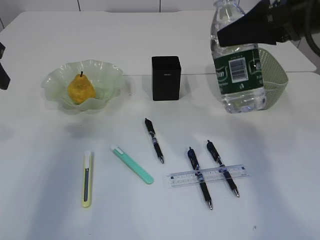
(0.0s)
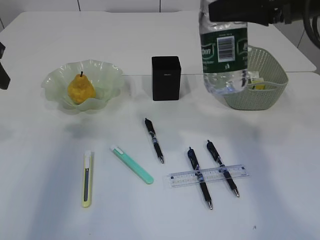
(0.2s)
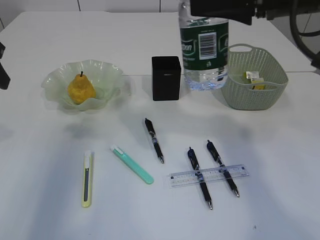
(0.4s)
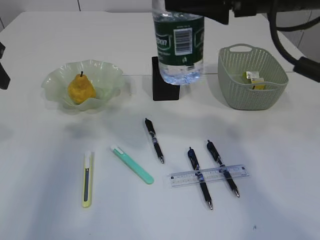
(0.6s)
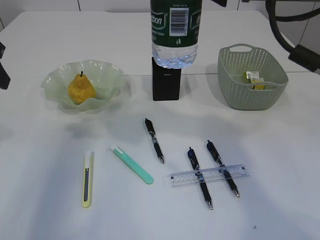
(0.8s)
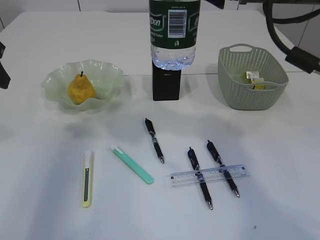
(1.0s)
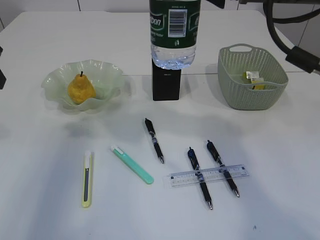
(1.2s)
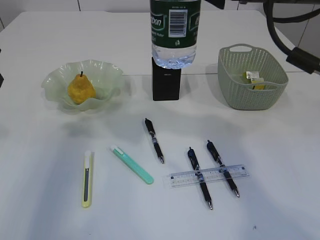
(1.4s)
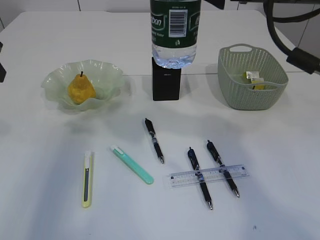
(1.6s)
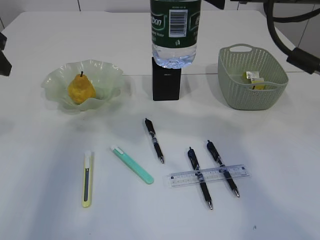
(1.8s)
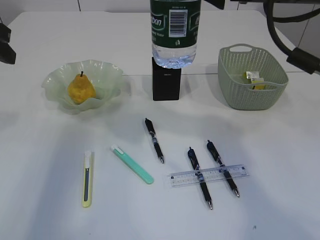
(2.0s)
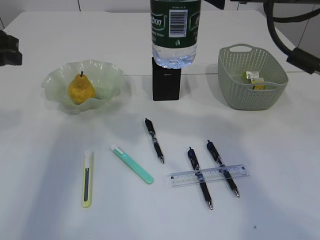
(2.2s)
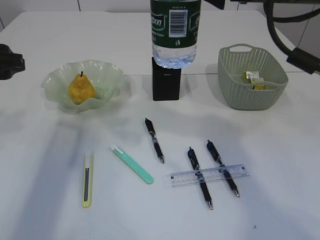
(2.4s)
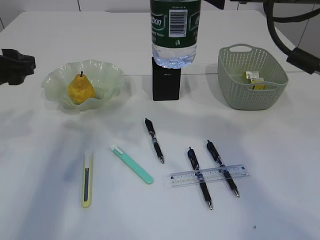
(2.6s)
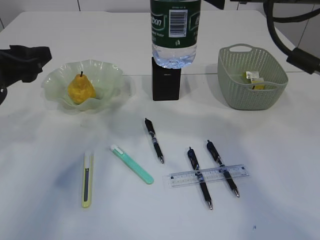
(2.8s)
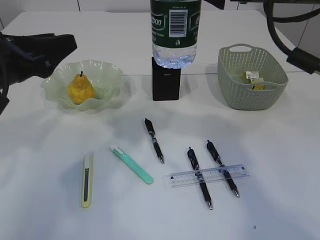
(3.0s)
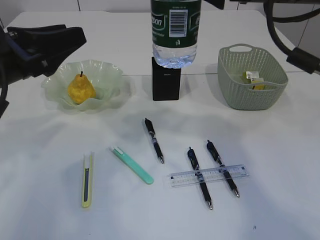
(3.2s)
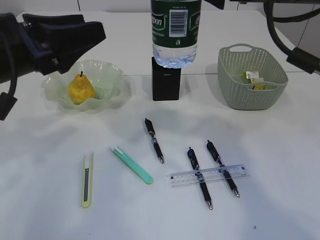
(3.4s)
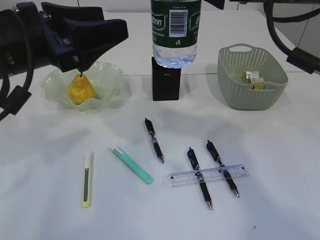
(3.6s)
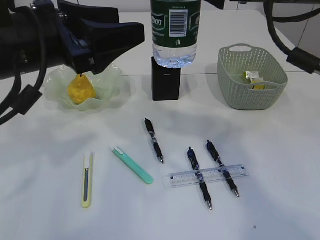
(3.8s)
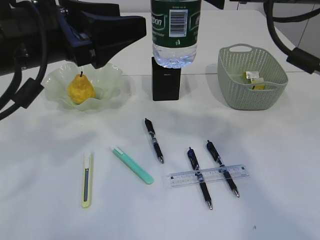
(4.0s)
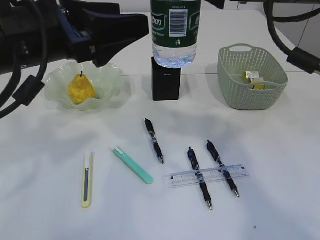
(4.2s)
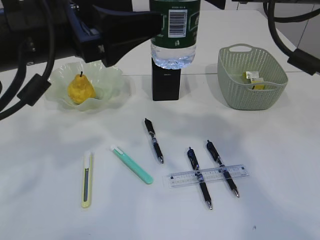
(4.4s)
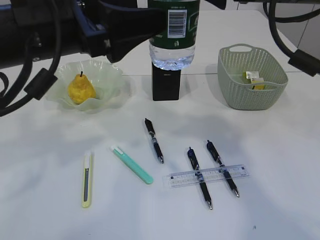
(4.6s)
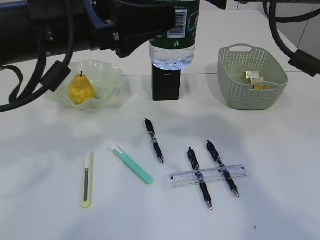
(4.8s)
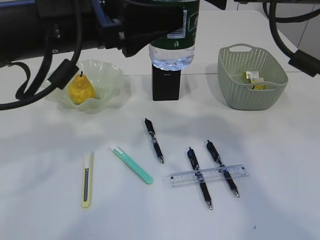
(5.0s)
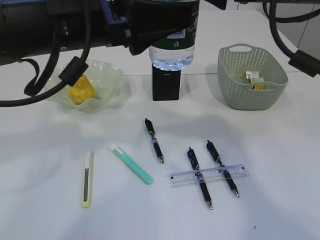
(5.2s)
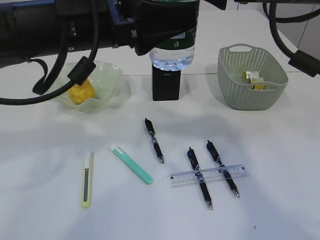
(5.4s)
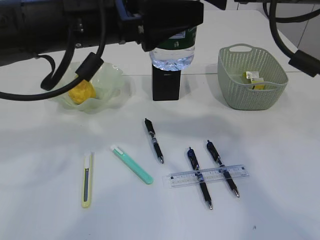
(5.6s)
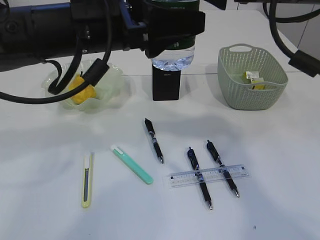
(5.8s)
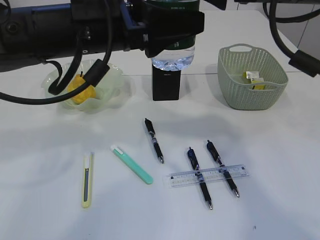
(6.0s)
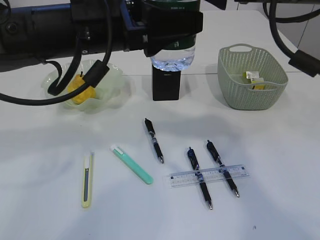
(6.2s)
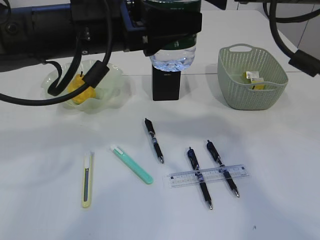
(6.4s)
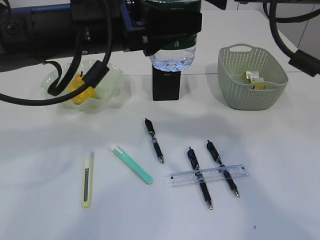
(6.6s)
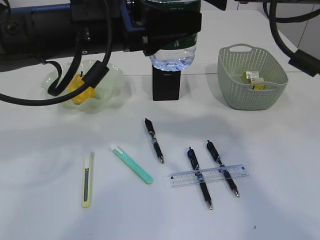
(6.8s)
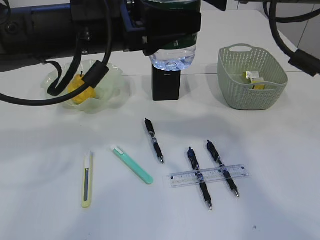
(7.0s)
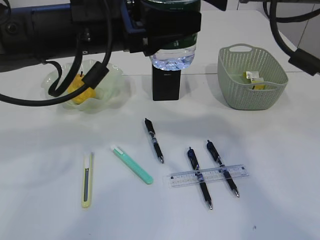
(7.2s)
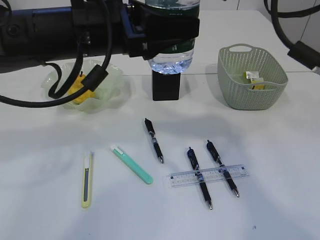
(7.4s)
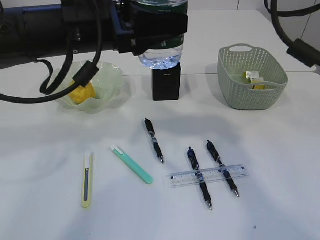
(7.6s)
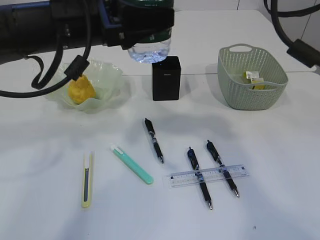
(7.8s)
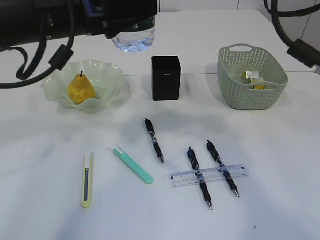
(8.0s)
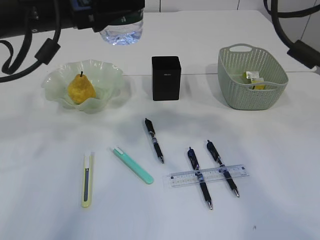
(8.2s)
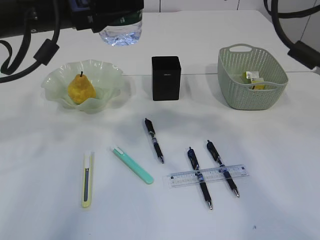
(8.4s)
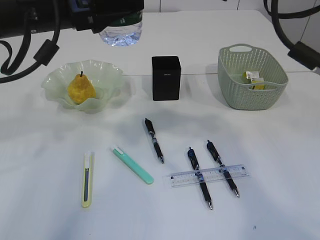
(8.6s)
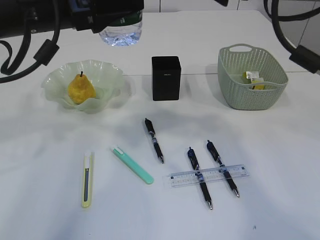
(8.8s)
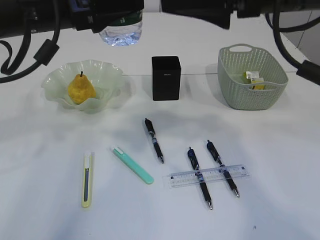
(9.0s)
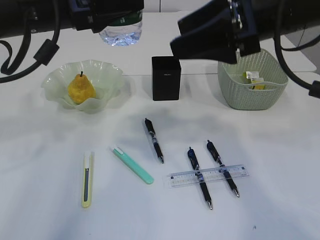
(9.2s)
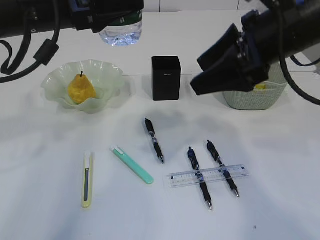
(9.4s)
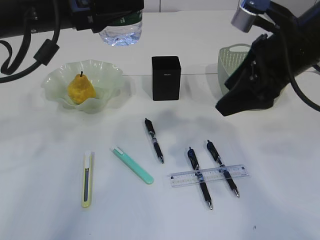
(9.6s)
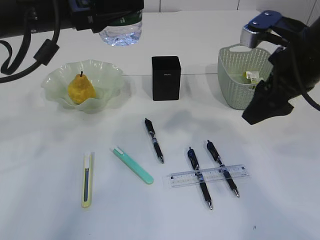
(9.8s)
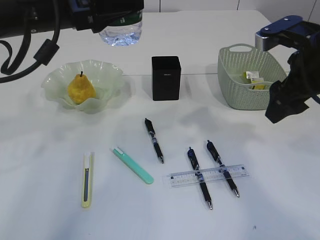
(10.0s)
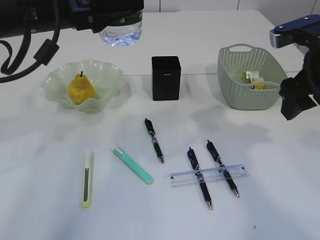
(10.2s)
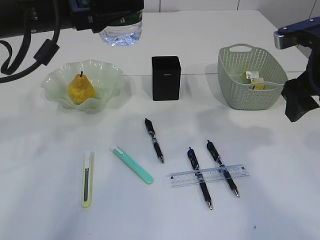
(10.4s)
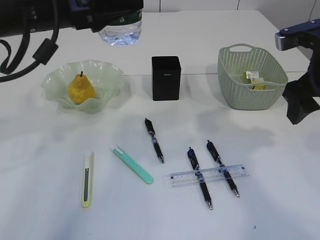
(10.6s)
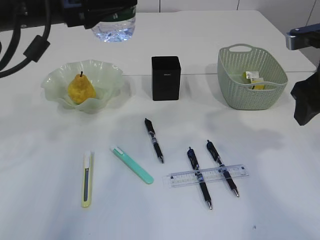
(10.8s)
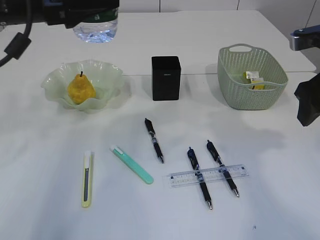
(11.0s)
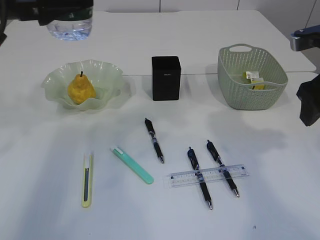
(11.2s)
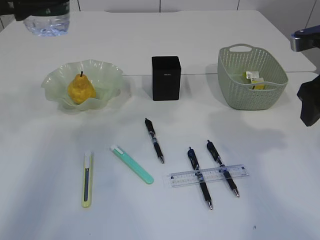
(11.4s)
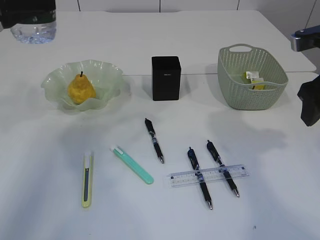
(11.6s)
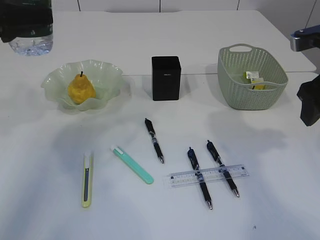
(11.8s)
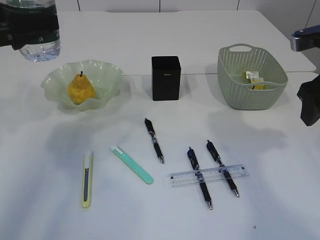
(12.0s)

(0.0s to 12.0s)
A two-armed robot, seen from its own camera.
Step, 0.0s - 8.2s: Place the bottle.
0.0s - 1.6s: The right gripper is displaced to the left by roughly 5 cm.
1.6s - 3.0s: The left gripper travels downward and to the right by roughly 10 cm.
3.0s - 4.4s: The left gripper moves to the right and upward, about 10 cm, and opens.
4.4s - 6.0s: The left gripper ends up approximately 5 cm from where it was.
6.0s - 7.6s: The left gripper closes; the right gripper opens its fingers.
7.6s - 9.0s: The left gripper heads to the left, covering approximately 5 cm.
9.0s - 10.4s: The right gripper travels to the right and downward by some 10 cm.
10.4s - 12.0s: The left gripper heads to the left, covering some 15 cm.

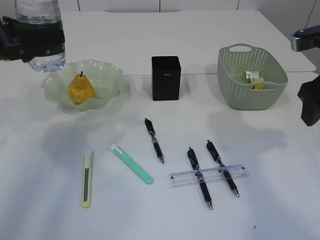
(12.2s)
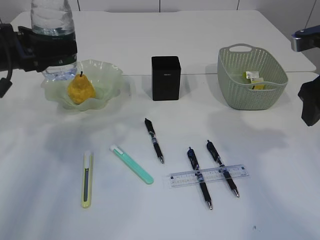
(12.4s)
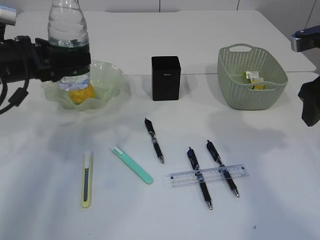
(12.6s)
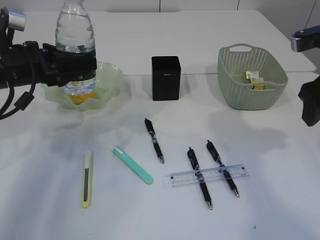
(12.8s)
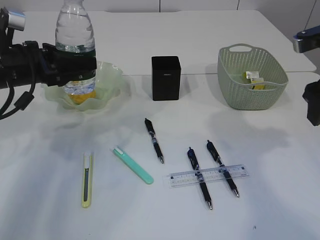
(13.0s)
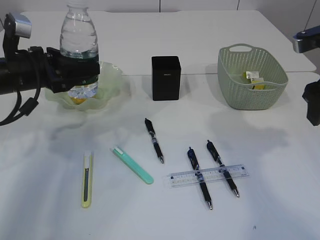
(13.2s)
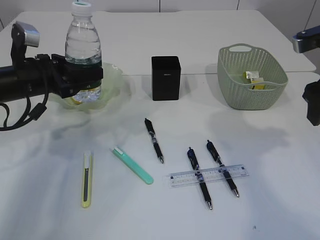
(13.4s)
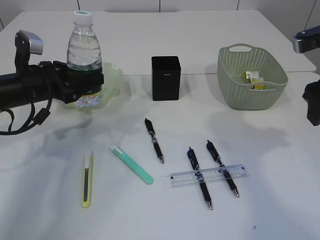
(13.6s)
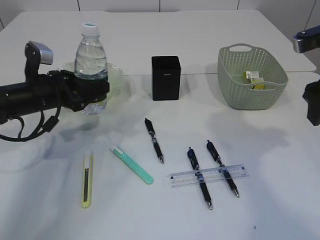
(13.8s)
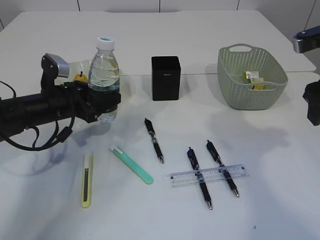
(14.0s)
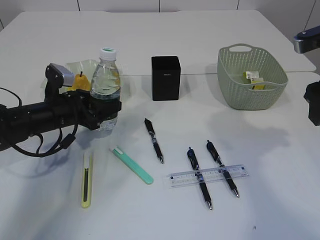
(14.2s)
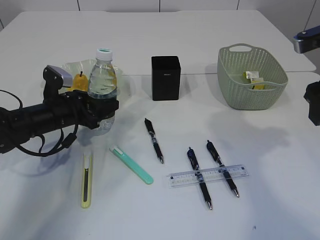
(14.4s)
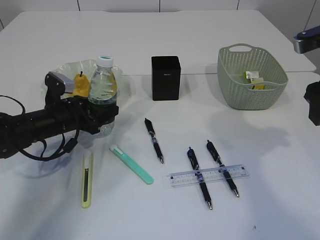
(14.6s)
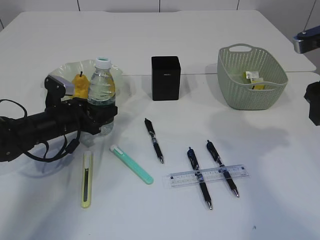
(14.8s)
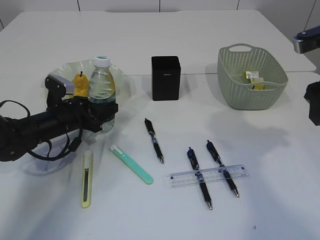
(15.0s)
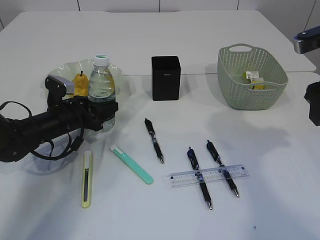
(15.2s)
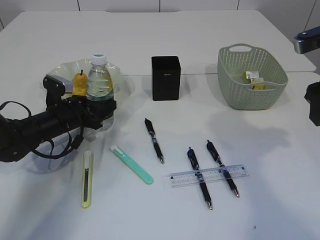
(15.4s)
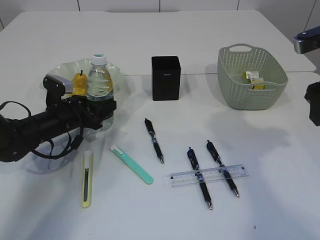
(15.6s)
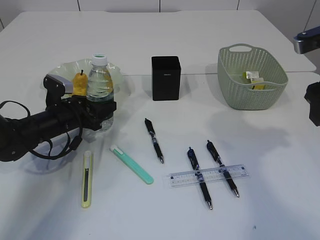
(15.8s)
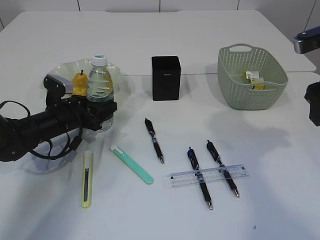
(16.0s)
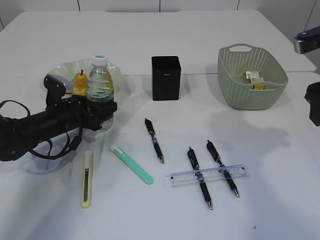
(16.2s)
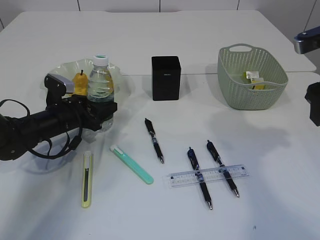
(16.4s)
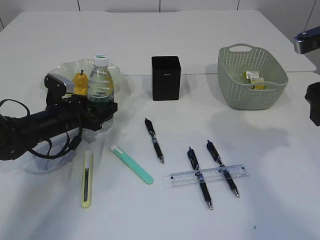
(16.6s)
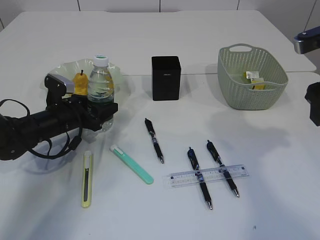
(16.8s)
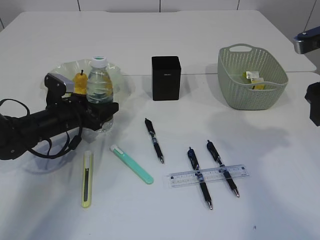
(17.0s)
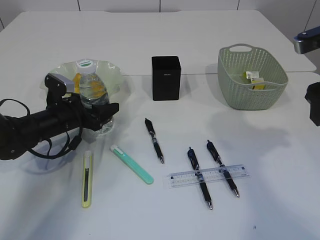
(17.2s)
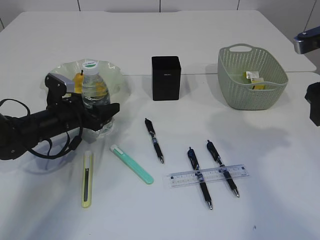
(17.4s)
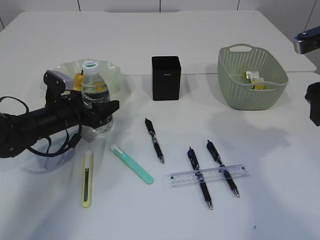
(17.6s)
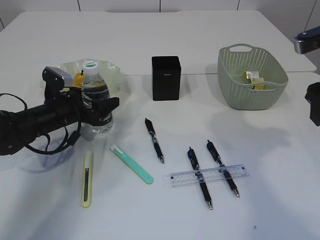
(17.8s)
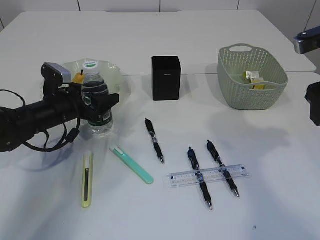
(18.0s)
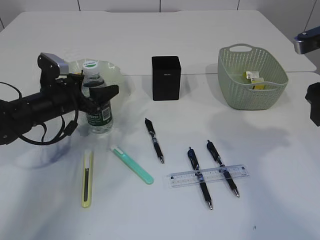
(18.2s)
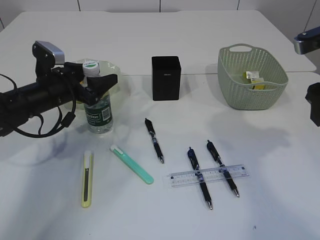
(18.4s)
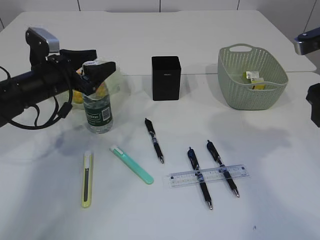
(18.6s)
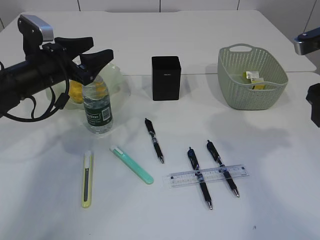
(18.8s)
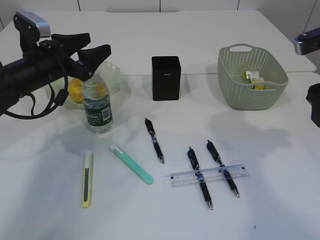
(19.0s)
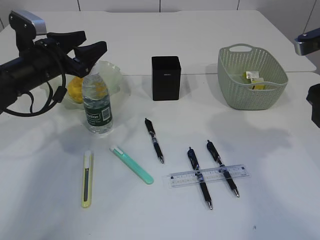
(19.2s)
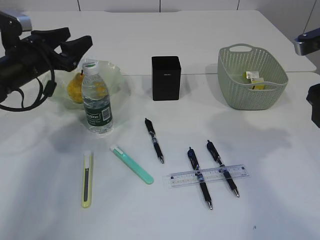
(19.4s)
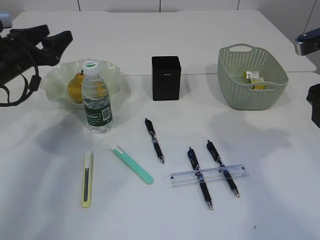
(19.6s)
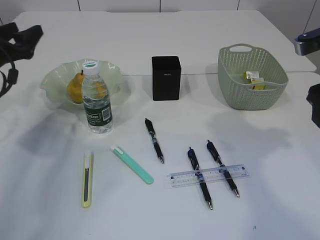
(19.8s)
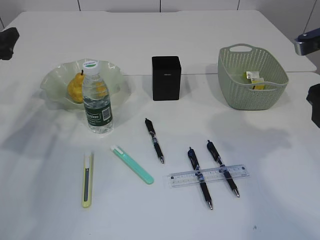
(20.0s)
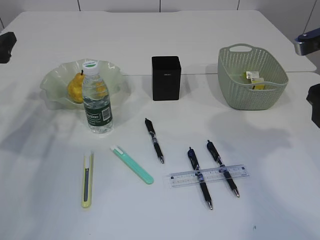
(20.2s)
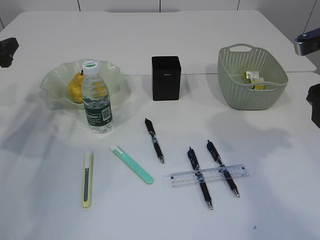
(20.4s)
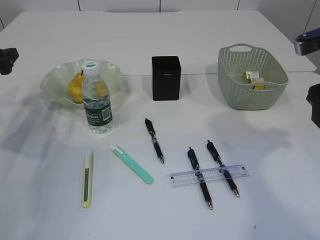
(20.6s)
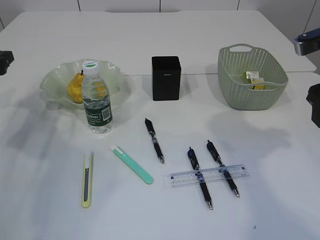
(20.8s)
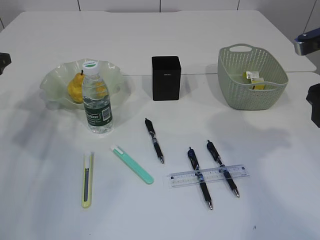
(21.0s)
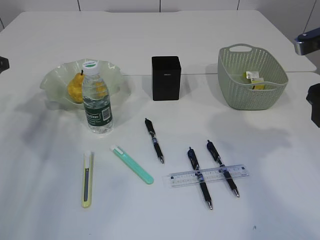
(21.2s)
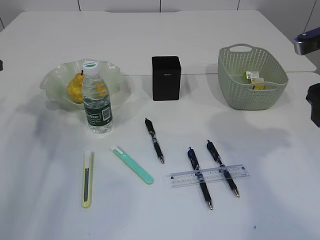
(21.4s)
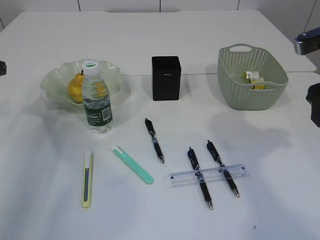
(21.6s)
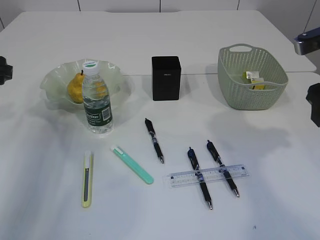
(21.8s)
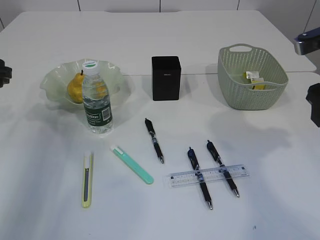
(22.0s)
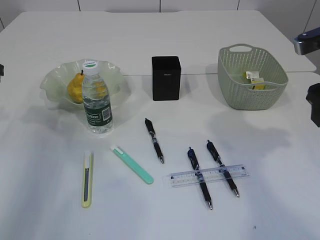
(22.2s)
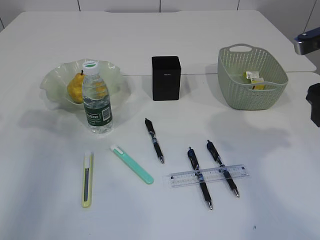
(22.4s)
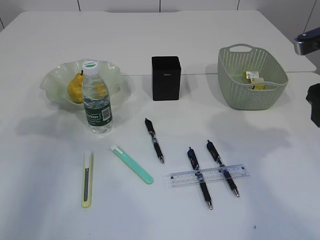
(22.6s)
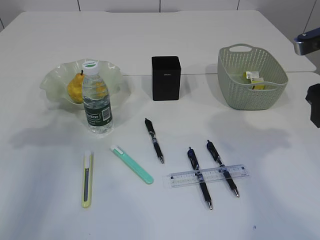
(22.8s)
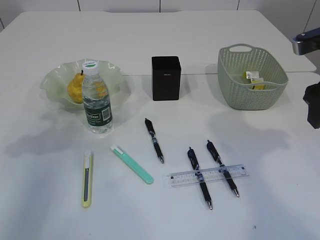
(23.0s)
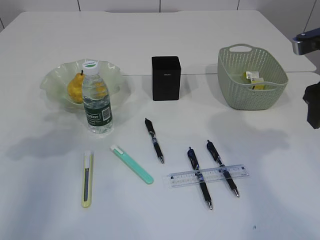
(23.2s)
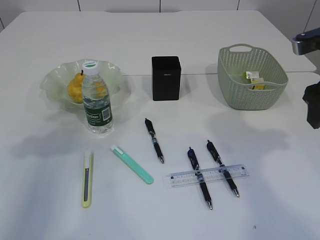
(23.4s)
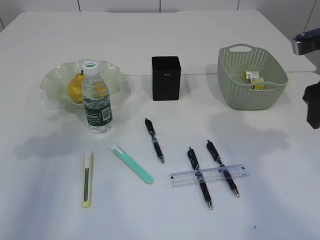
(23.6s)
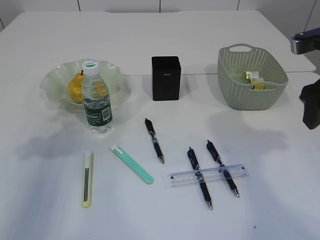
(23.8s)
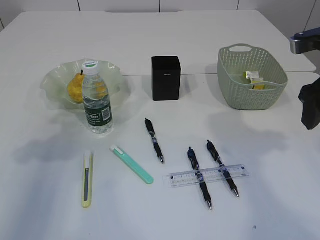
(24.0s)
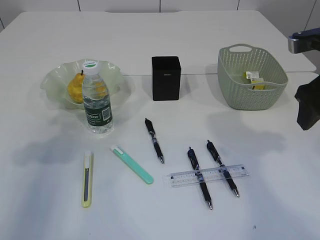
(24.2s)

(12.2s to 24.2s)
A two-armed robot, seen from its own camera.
Step, 12.2s - 20.2s: transfer the bottle to the left arm.
12.2s - 13.8s: The left gripper travels downward and to the right by about 15 cm.
13.8s - 15.2s: The left gripper heads downward, covering about 10 cm.
15.2s - 16.6s: The two grippers keep their place.
16.6s - 18.2s: The grippers stay close to where they were, moving slightly.
18.2s - 19.8s: The left gripper travels to the left and upward by about 15 cm.
19.8s - 21.2s: The left gripper shifts by roughly 5 cm.
21.2s - 22.6s: The left gripper is displaced backward by roughly 5 cm.
